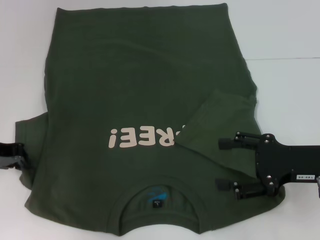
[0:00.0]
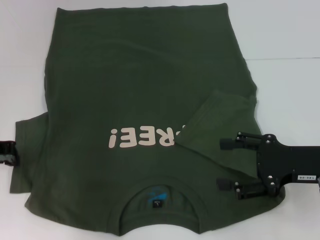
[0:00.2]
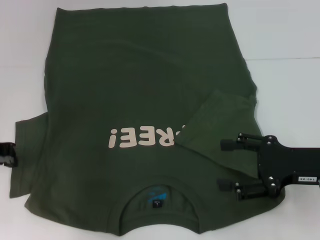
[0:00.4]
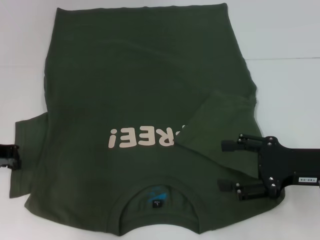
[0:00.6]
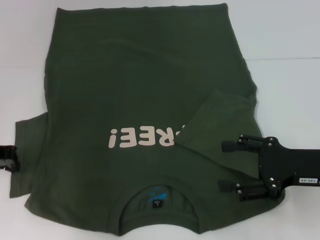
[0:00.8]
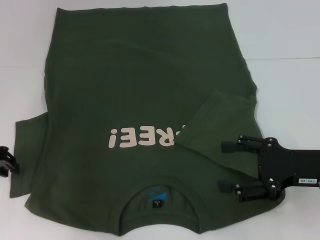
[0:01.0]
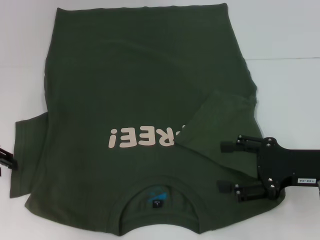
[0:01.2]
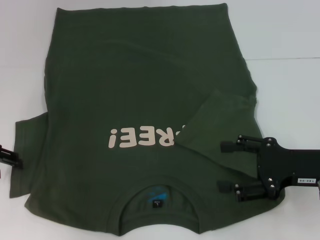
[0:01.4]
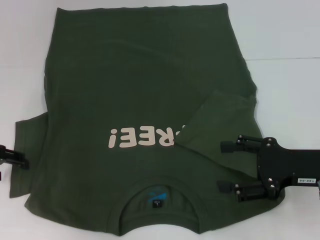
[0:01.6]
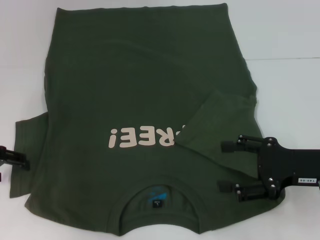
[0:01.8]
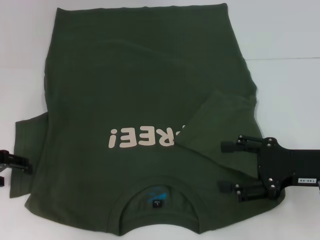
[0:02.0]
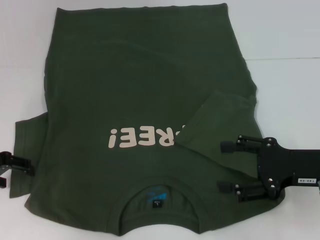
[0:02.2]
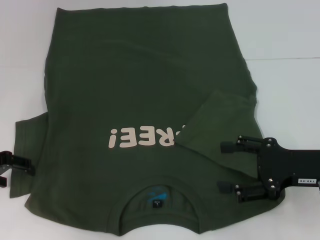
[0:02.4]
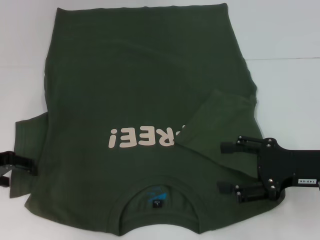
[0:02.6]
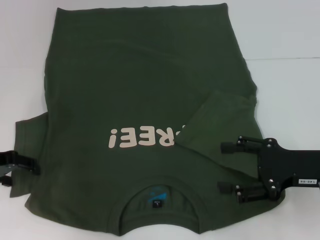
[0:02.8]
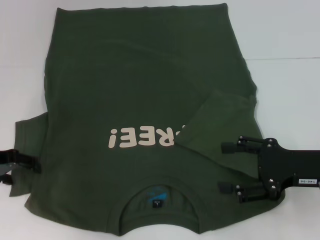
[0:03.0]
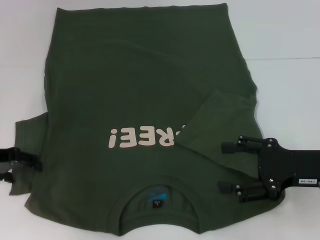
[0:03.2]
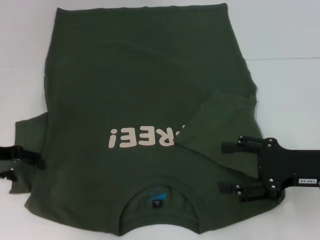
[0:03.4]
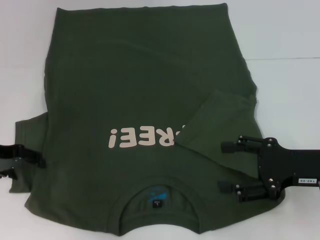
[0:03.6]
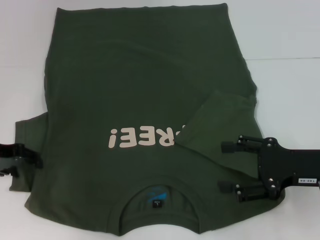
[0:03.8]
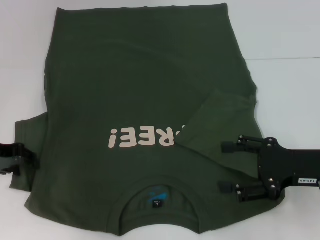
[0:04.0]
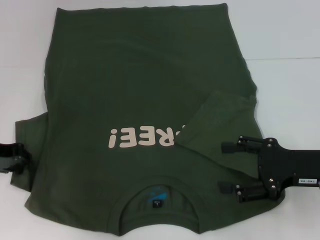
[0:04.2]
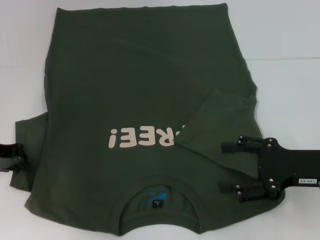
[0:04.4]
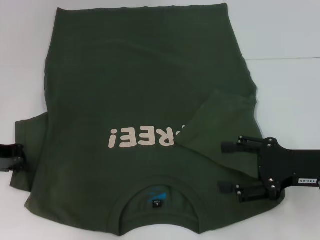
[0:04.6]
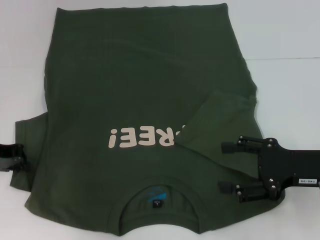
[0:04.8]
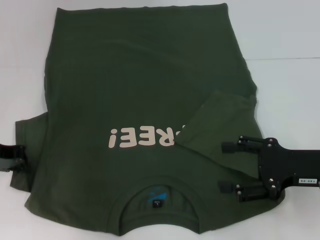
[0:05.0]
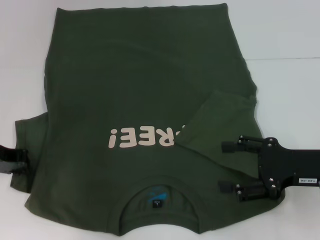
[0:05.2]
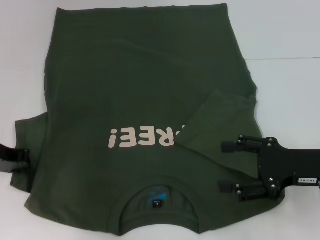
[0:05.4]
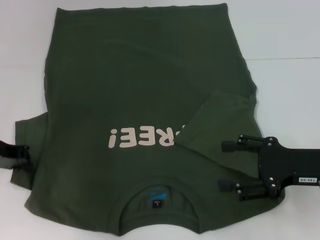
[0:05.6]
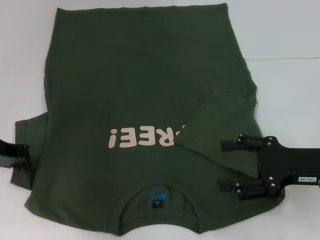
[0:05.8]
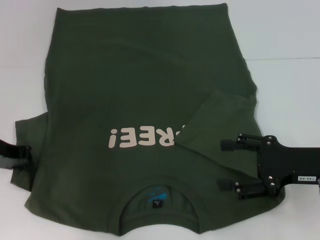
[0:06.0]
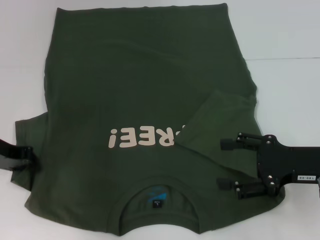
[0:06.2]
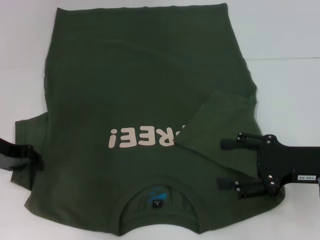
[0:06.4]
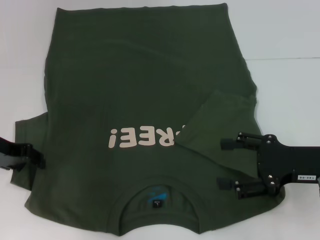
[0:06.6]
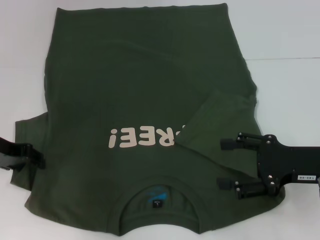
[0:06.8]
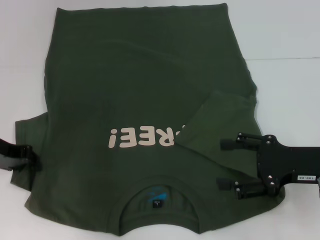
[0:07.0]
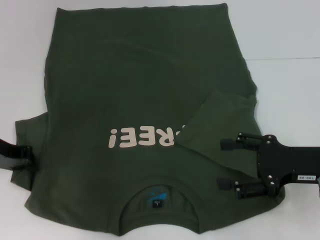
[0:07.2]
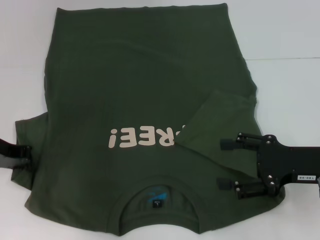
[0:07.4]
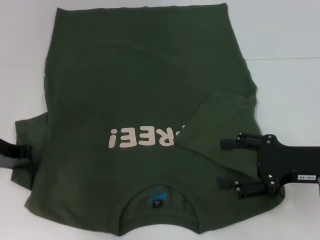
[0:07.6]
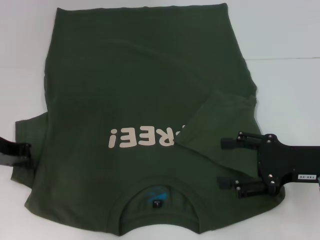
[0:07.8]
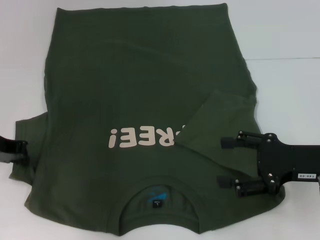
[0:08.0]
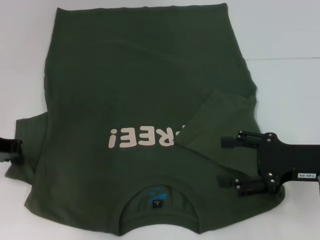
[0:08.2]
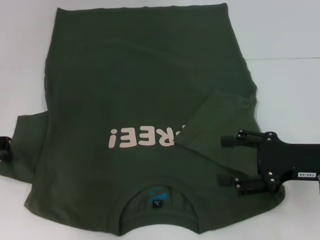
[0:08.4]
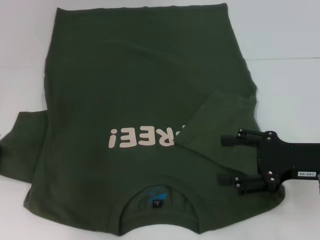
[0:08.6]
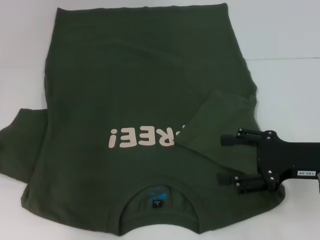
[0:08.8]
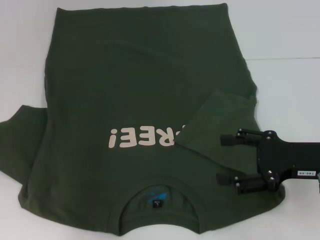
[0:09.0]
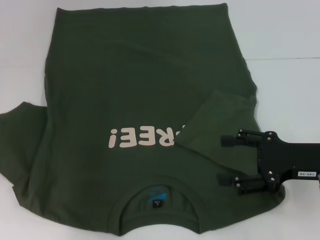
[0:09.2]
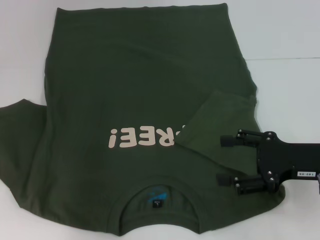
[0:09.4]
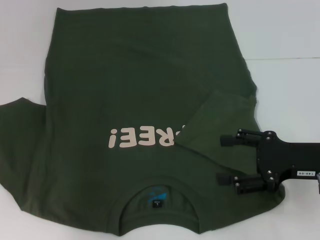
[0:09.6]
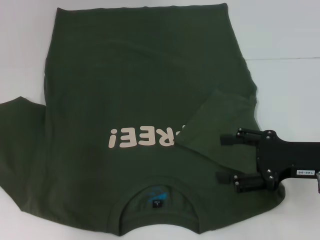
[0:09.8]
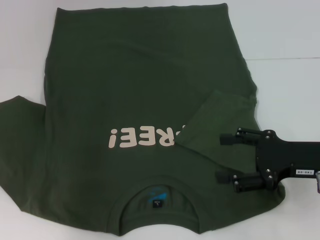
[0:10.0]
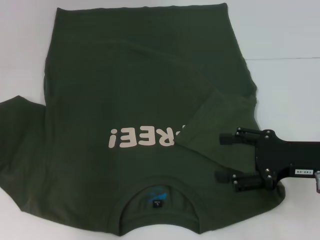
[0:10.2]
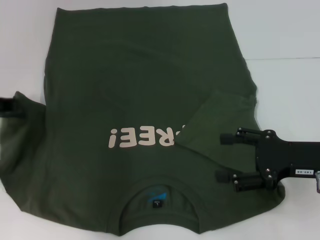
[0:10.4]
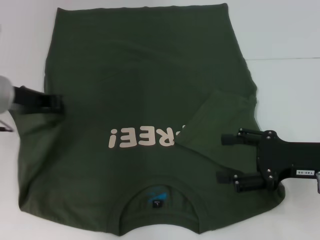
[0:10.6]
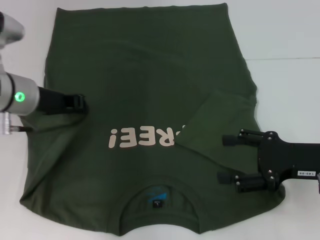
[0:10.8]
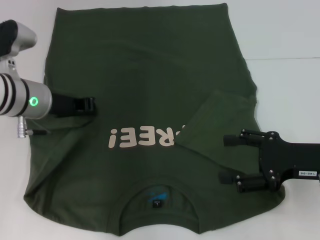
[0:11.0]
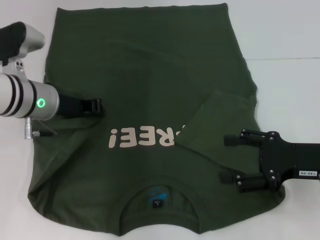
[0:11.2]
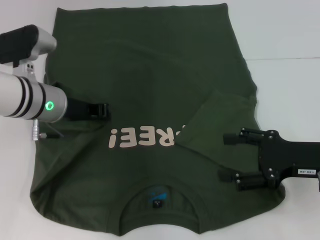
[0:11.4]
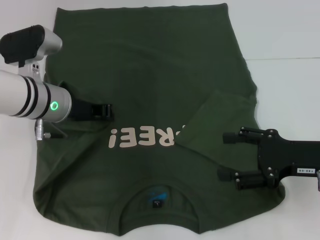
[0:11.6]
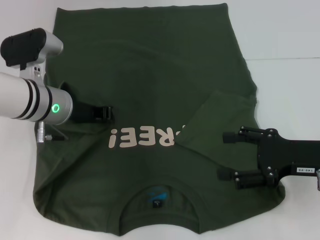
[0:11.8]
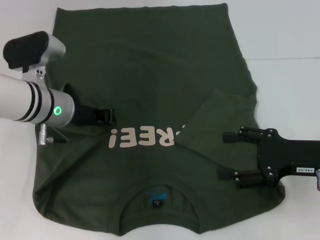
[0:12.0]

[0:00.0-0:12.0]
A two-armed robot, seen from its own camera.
0:00.0 to 0:01.6: The left gripper opens.
0:01.6 to 0:03.0: There are only small adjustments of the grippers.
0:03.0 to 0:04.4: The left gripper closes.
0:04.4 to 0:06.0: There are only small adjustments of the grippers.
0:07.6 to 0:09.0: The left gripper moves some 5 cm.
0:09.0 to 0:10.4: The left gripper travels to the right by roughly 5 cm.
0:10.4 to 0:12.0: The left gripper travels to the right and downward by roughly 10 cm.

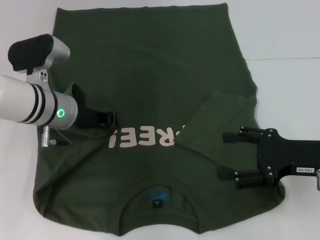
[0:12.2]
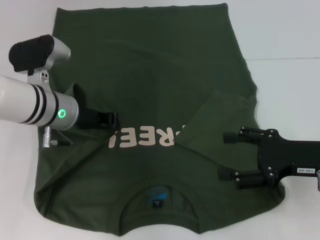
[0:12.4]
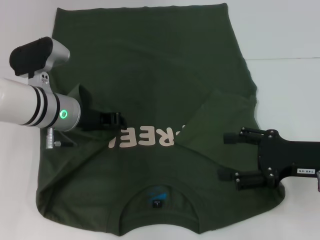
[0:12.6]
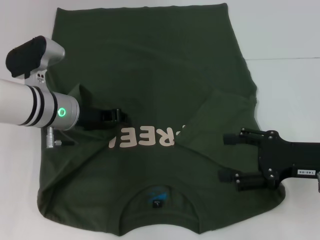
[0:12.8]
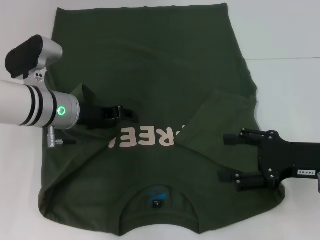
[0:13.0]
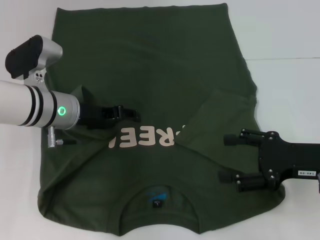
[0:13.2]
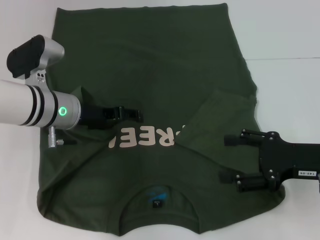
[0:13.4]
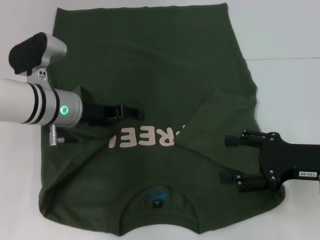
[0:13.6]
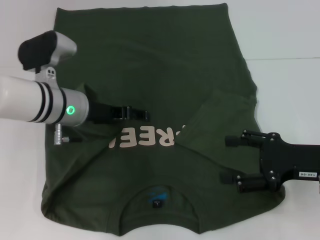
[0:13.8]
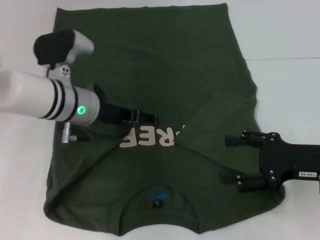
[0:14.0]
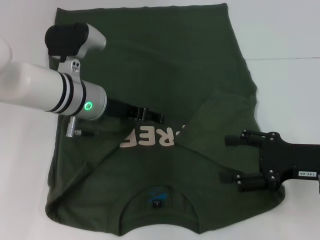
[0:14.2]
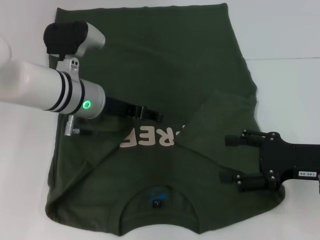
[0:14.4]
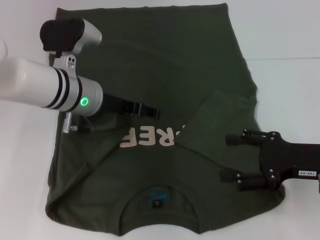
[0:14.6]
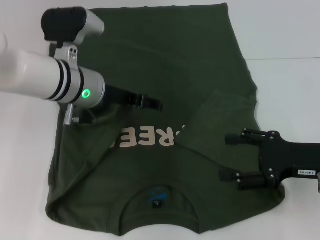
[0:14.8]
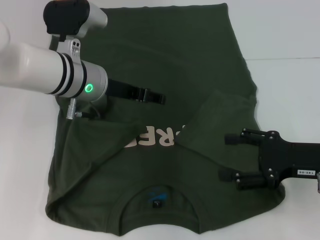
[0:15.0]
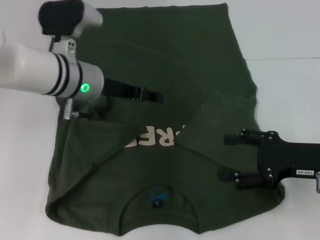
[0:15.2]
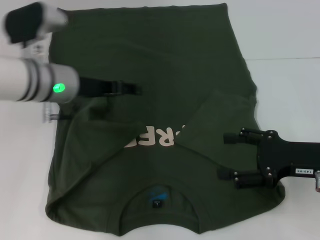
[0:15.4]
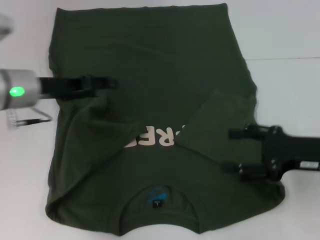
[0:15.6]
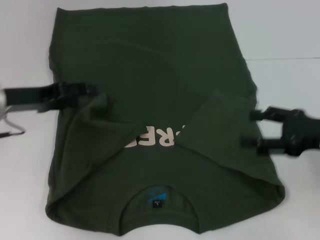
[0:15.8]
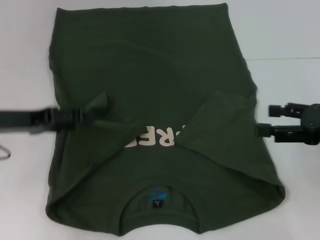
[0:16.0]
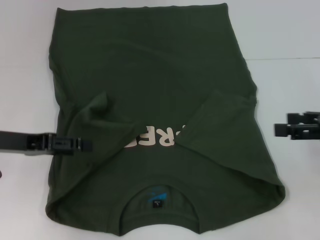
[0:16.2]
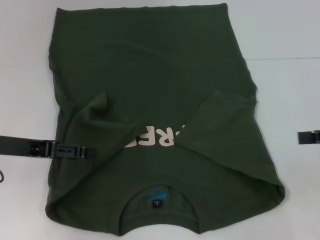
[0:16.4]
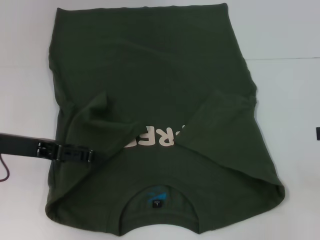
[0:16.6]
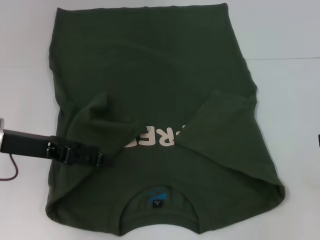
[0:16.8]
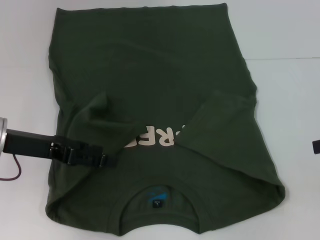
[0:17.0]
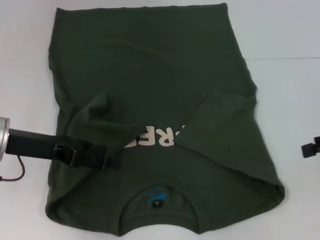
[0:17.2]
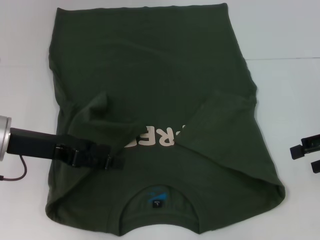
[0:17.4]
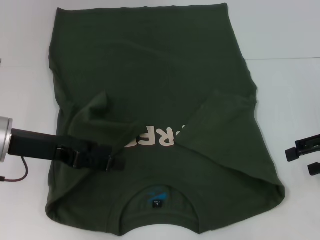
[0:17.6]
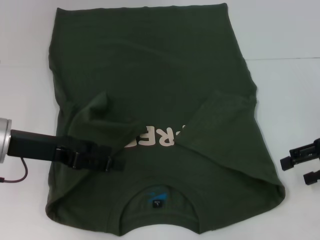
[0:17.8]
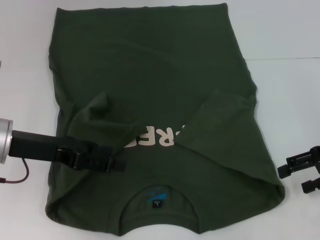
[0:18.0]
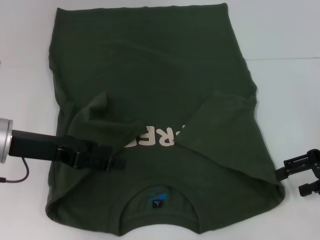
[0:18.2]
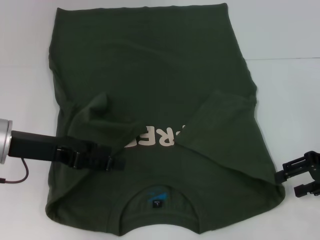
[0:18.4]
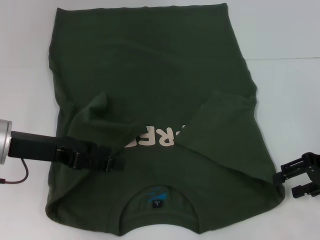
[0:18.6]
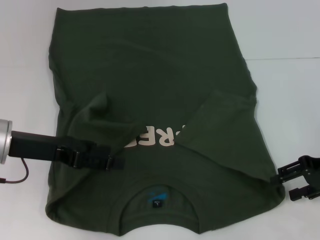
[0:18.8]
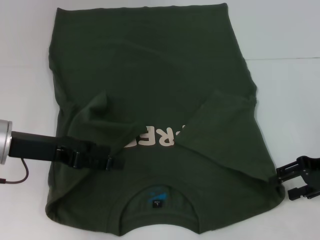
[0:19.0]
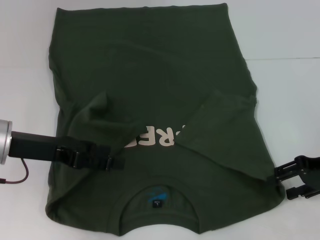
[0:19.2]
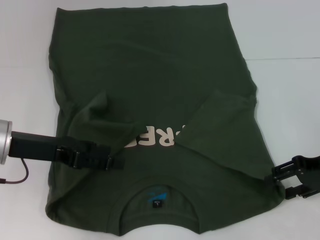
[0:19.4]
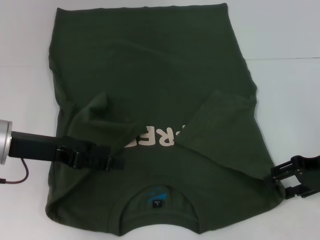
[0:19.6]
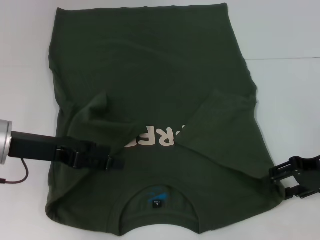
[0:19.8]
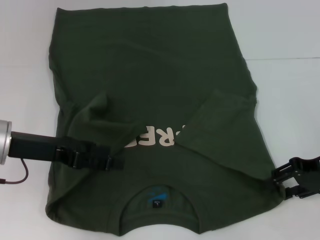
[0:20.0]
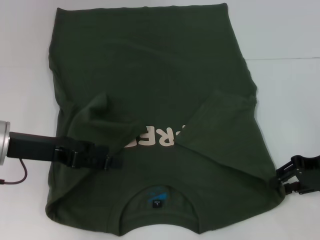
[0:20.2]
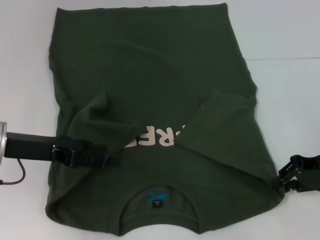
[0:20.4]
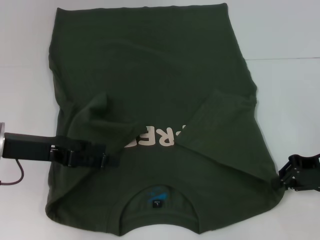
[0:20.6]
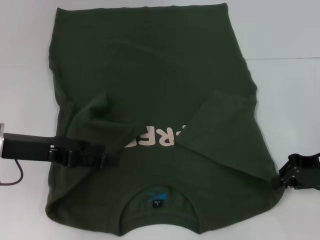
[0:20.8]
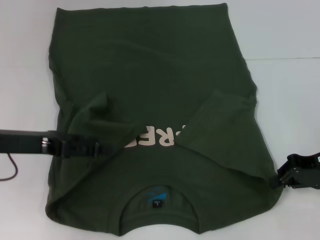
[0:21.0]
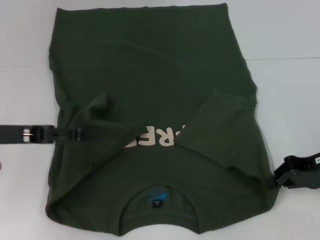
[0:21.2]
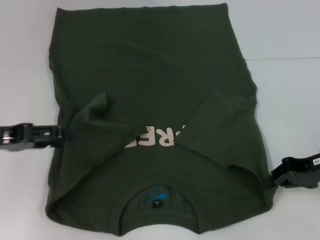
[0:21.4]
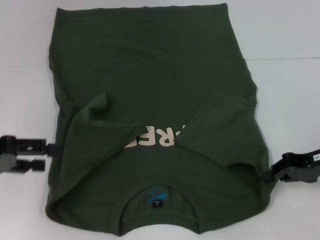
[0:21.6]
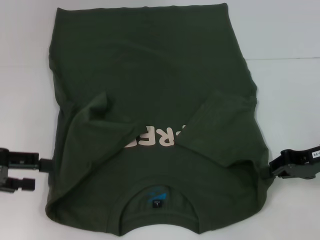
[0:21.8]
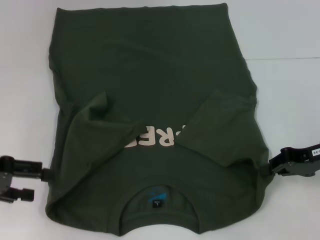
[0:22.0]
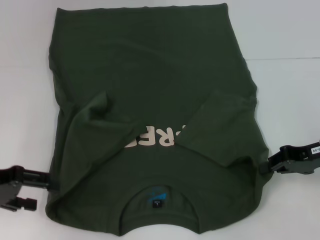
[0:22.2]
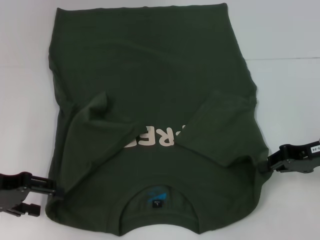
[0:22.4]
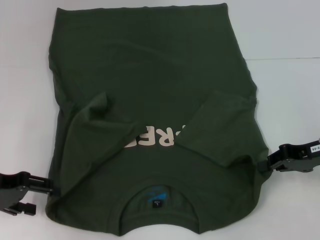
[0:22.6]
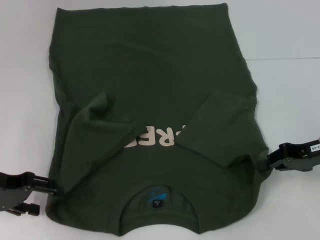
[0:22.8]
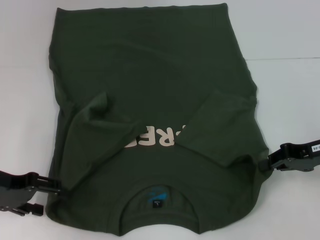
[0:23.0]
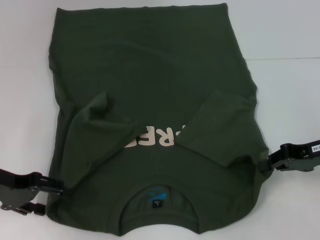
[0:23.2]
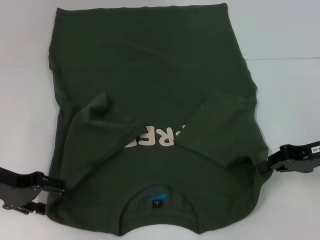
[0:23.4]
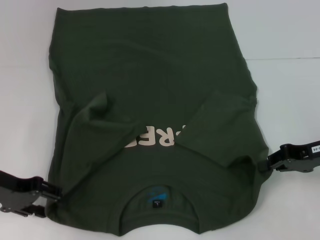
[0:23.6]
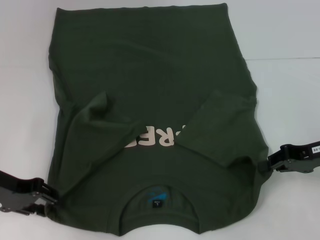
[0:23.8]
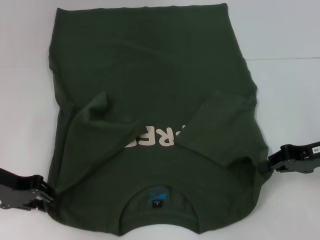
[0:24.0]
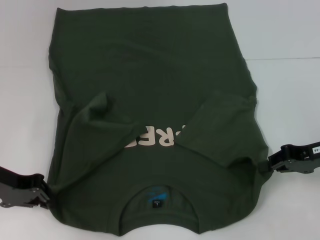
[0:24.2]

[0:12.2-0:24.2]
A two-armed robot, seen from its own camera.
Step, 0:12.2 to 0:14.4: Fold the bottom left sleeve with your left hand.
0:12.2 to 0:13.8: The left gripper opens up.
0:13.8 to 0:15.2: The grippers stay close to where they were, moving slightly.
0:15.2 to 0:16.6: The right gripper heads to the right and upward, covering some 15 cm; the left gripper heads to the left and backward, covering about 15 cm.
0:16.6 to 0:18.2: The right gripper goes approximately 5 cm downward.
0:18.2 to 0:19.8: The grippers make only small movements.
0:19.8 to 0:21.2: The right gripper closes its fingers.
0:22.6 to 0:24.2: The left gripper closes up.
